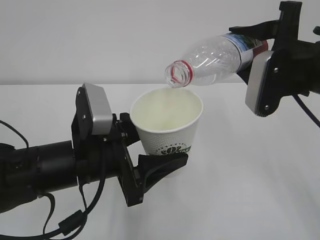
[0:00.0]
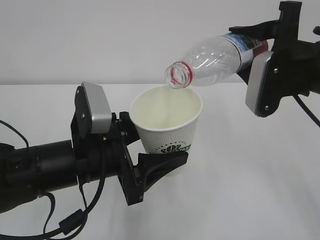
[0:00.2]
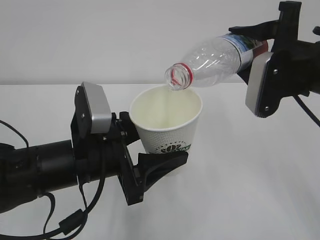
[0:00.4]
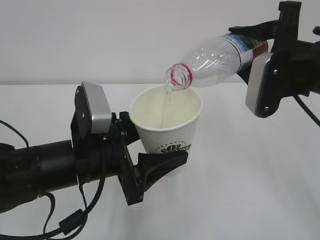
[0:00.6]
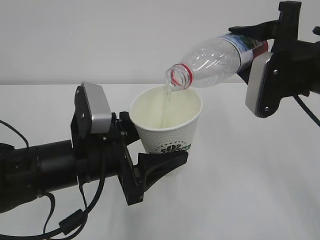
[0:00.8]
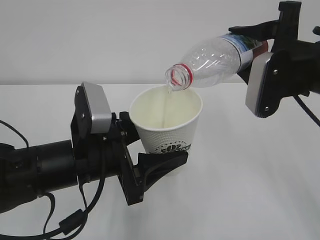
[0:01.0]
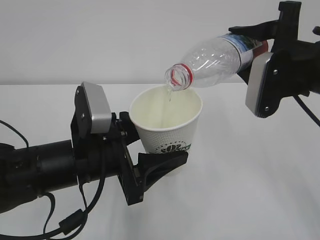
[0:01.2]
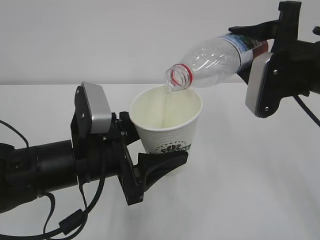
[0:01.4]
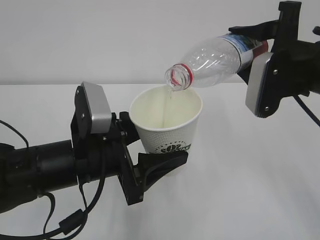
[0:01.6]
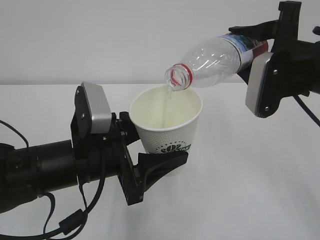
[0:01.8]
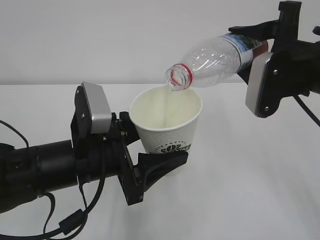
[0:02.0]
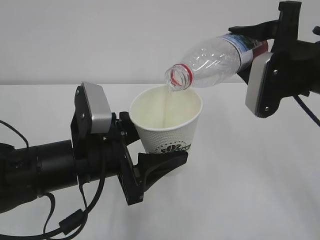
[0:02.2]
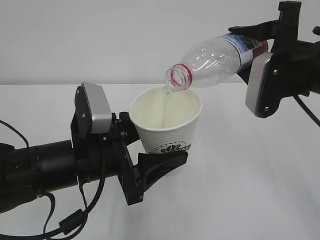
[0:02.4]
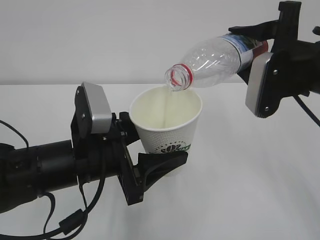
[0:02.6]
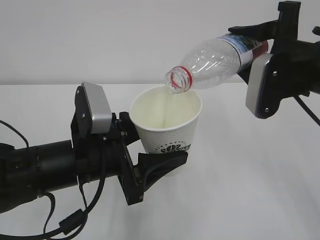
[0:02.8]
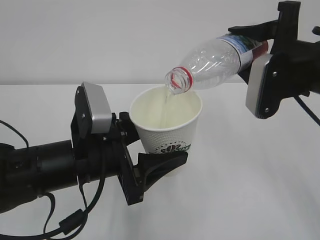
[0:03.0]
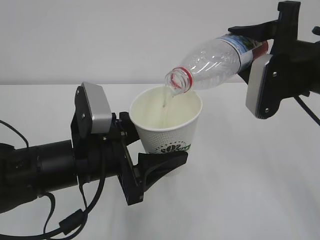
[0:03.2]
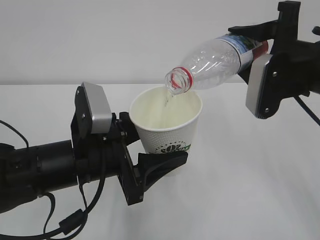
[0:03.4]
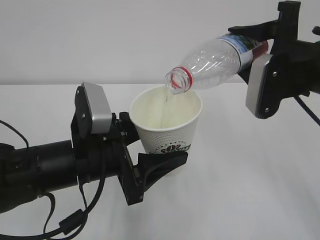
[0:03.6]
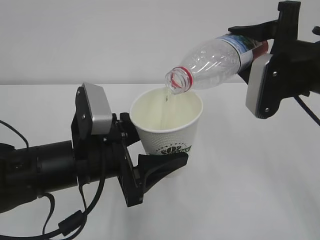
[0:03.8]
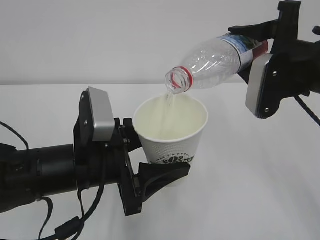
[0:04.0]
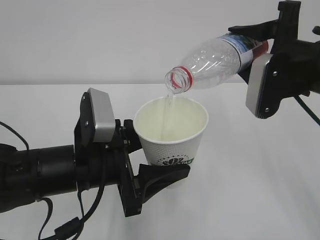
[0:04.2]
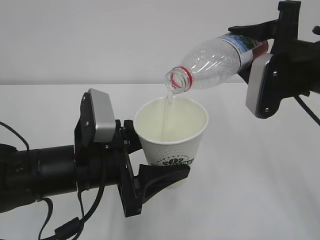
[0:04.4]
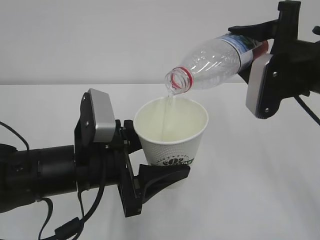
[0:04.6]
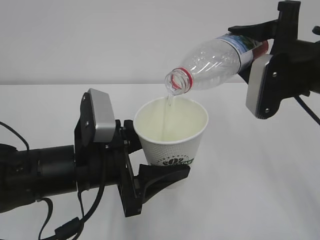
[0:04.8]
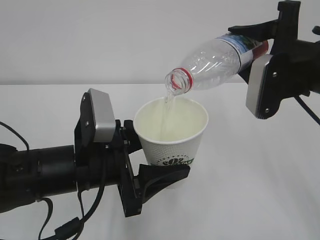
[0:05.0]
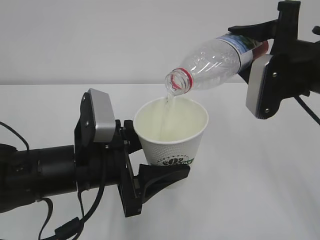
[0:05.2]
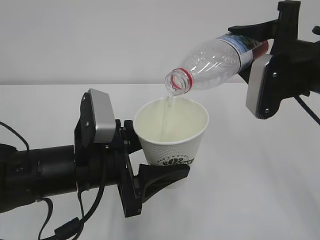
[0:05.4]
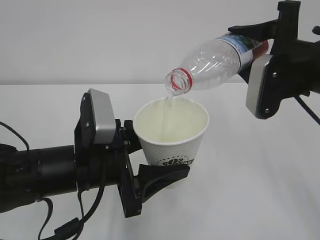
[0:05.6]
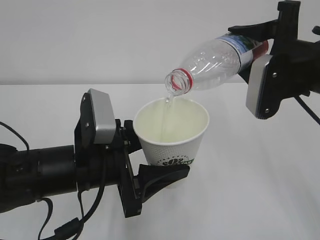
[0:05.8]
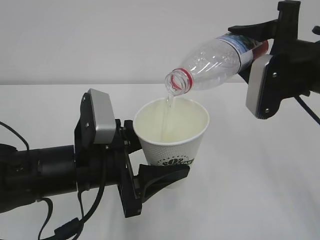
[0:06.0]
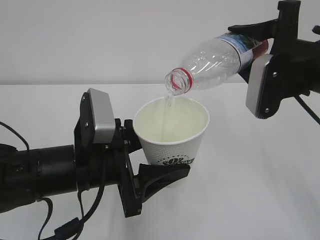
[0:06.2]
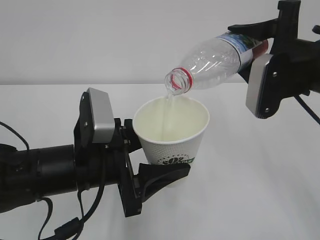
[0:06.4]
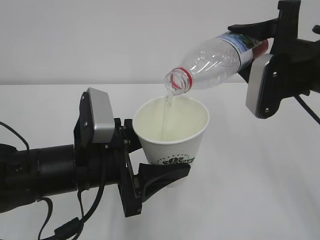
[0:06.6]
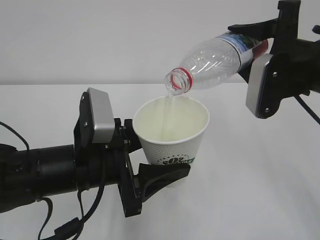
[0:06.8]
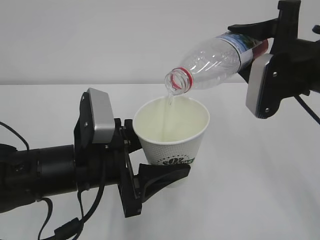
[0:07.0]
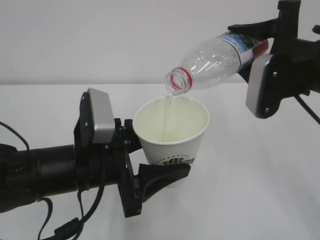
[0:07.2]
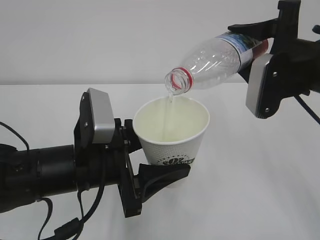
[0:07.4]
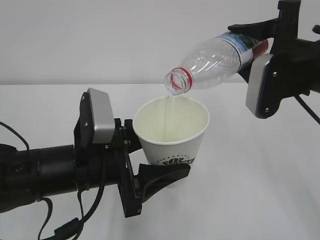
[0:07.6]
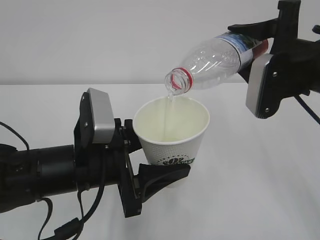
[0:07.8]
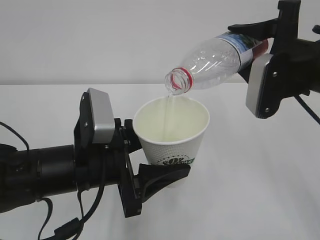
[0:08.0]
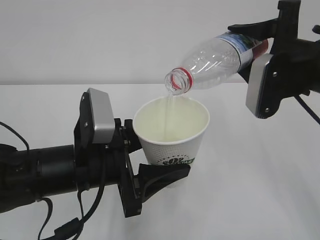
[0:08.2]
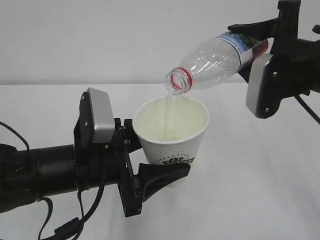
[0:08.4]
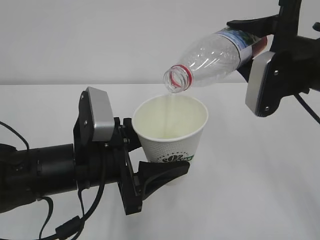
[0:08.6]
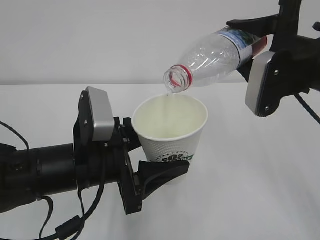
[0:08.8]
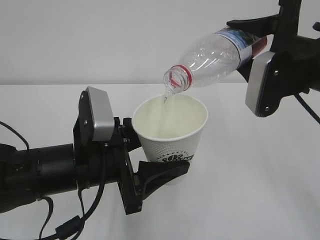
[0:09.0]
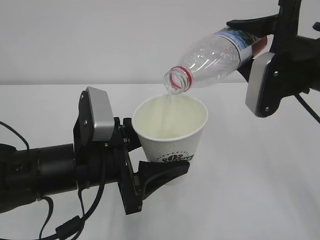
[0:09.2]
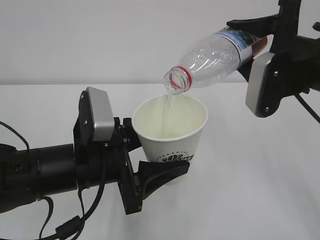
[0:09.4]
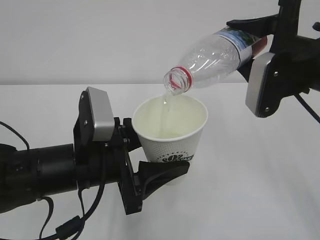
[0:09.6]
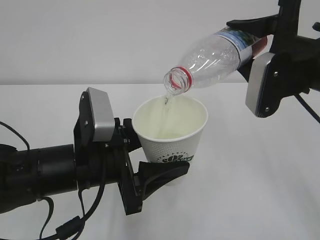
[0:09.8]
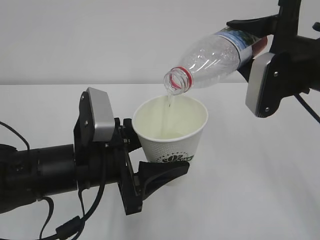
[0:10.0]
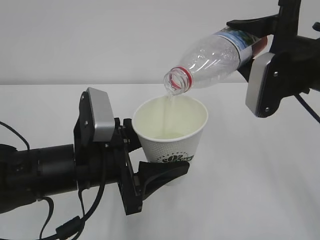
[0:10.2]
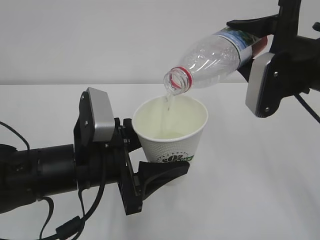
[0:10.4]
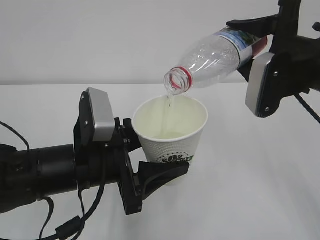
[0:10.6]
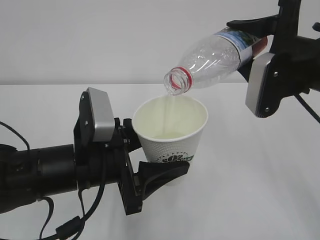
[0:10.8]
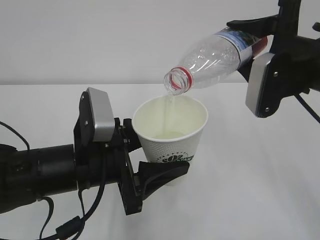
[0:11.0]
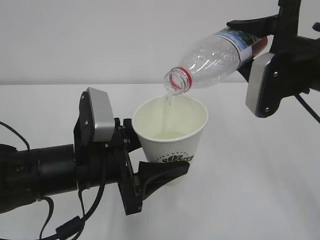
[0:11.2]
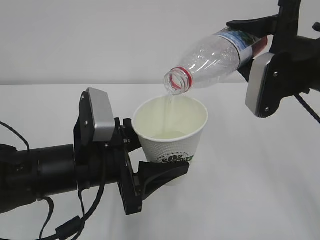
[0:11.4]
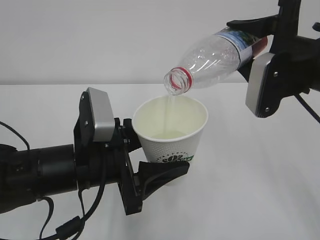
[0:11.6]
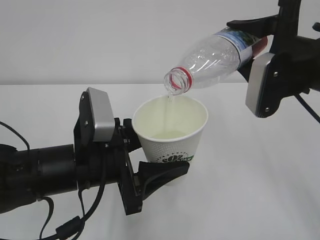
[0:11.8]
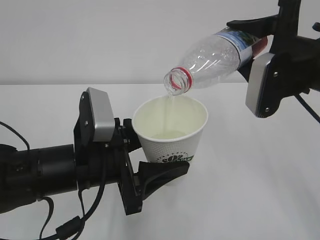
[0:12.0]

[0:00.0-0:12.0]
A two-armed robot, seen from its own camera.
0:00.0 to 0:07.6: Both grippers stay put.
0:07.6 to 0:12.0: Both grippers stay about where they are.

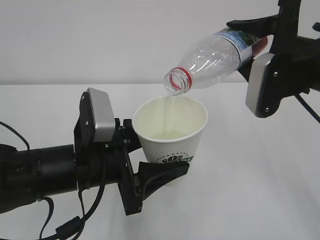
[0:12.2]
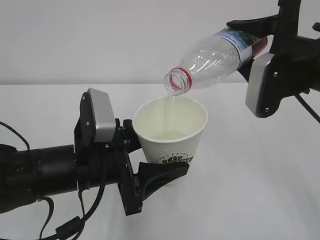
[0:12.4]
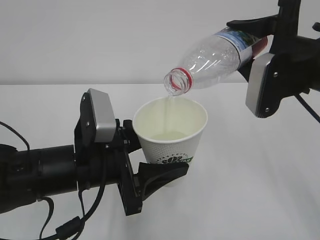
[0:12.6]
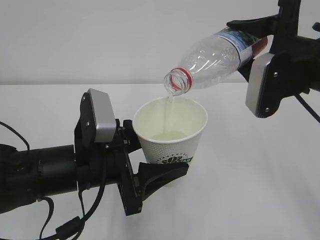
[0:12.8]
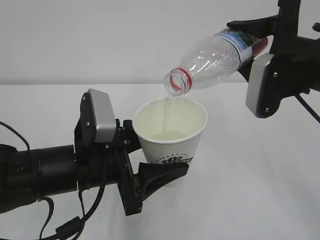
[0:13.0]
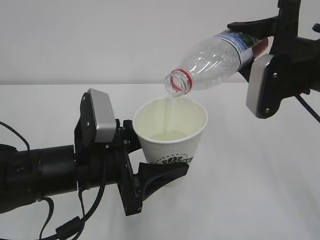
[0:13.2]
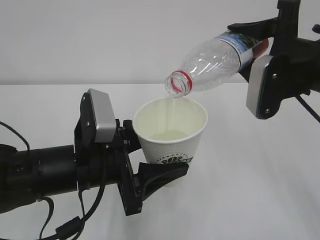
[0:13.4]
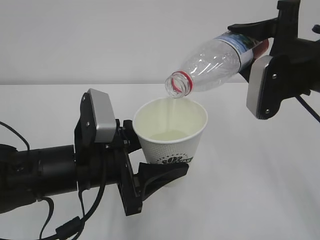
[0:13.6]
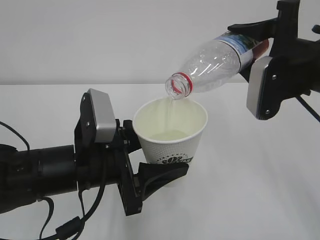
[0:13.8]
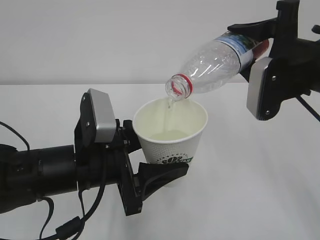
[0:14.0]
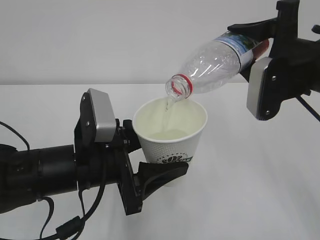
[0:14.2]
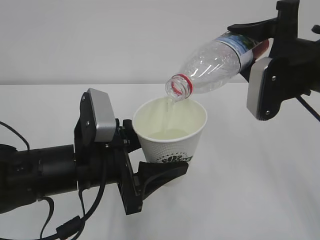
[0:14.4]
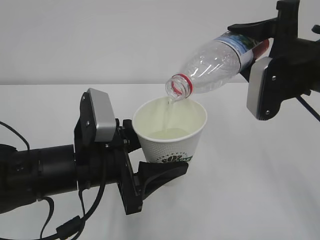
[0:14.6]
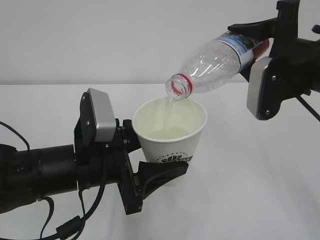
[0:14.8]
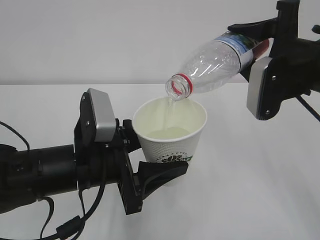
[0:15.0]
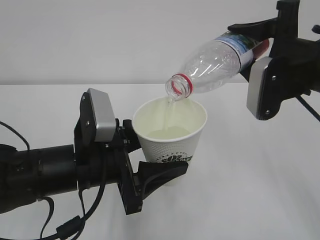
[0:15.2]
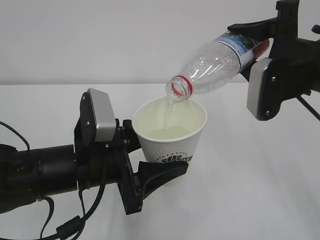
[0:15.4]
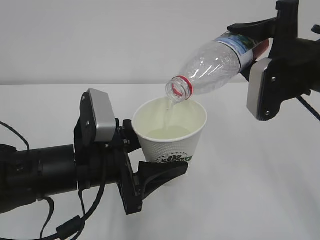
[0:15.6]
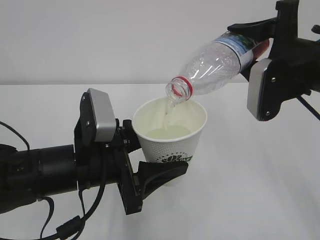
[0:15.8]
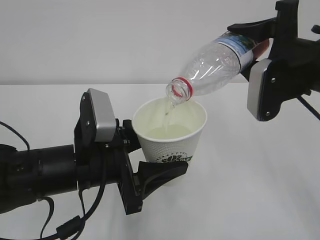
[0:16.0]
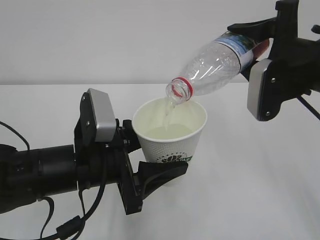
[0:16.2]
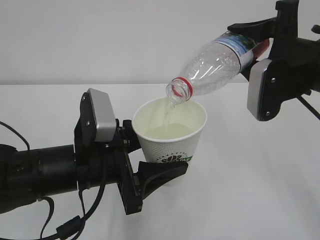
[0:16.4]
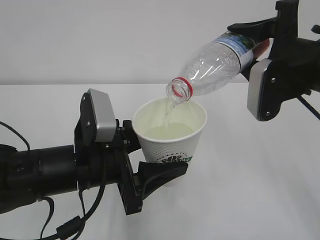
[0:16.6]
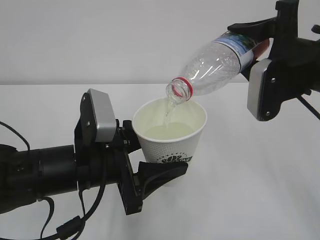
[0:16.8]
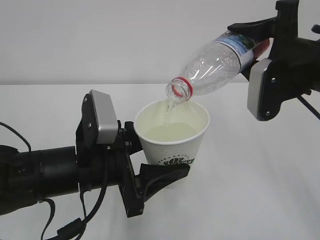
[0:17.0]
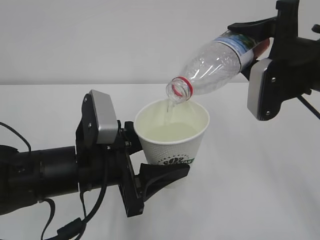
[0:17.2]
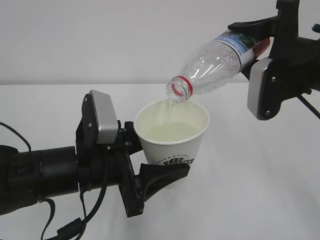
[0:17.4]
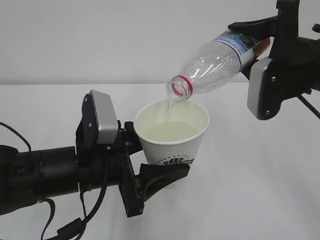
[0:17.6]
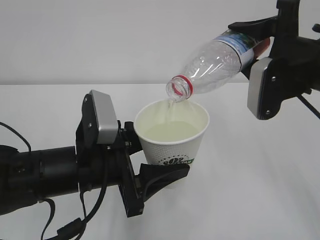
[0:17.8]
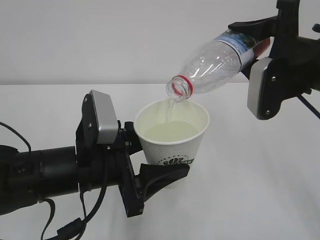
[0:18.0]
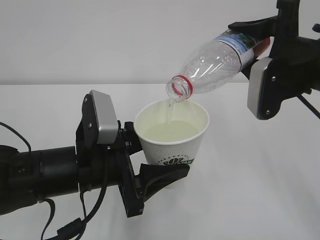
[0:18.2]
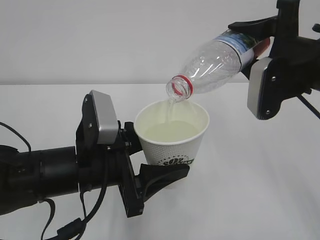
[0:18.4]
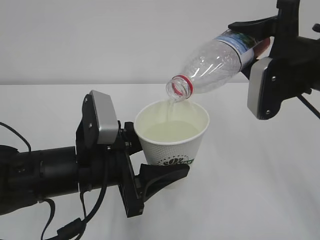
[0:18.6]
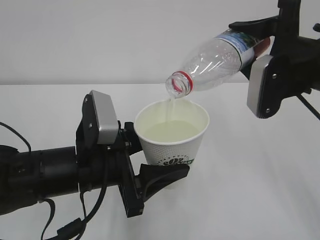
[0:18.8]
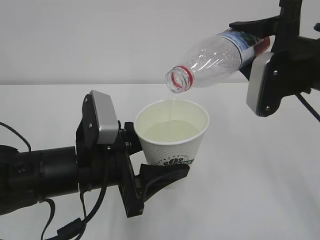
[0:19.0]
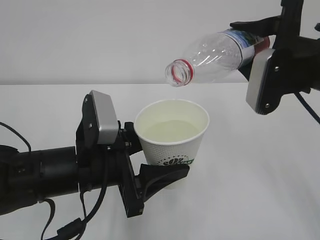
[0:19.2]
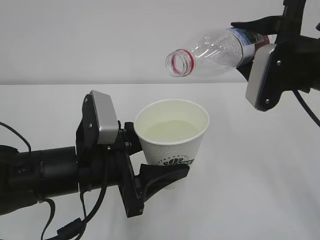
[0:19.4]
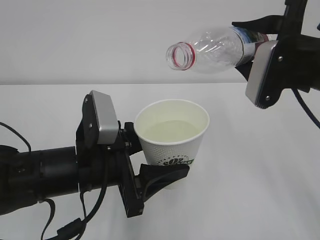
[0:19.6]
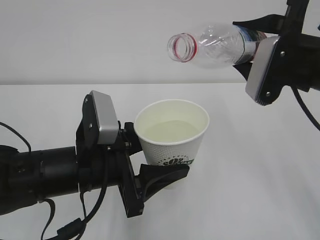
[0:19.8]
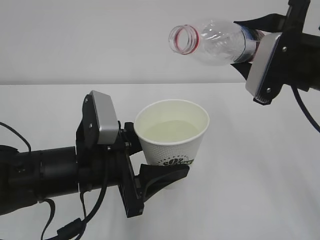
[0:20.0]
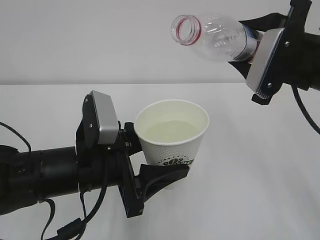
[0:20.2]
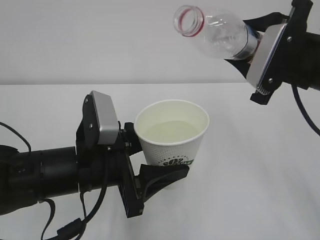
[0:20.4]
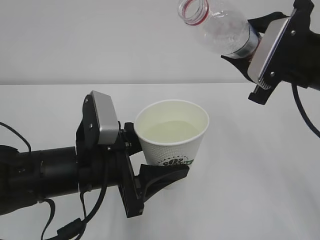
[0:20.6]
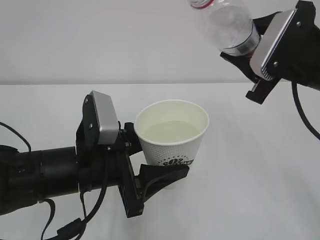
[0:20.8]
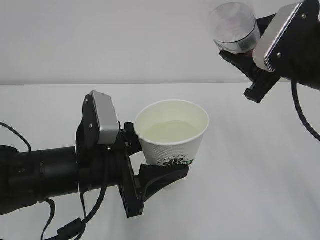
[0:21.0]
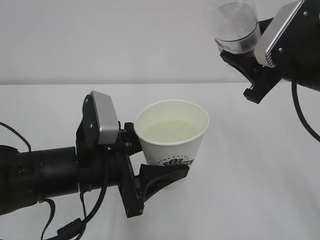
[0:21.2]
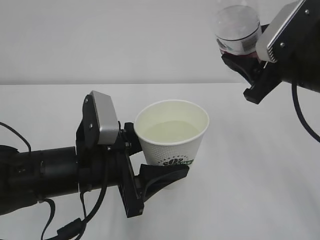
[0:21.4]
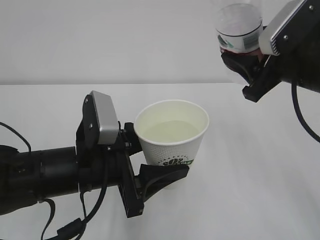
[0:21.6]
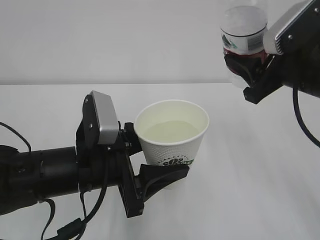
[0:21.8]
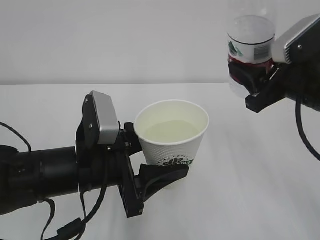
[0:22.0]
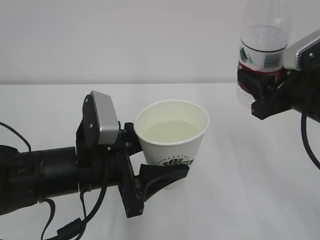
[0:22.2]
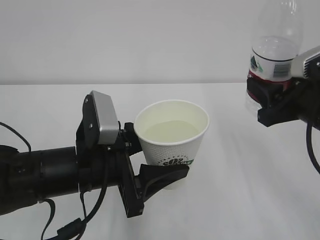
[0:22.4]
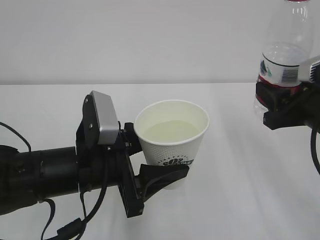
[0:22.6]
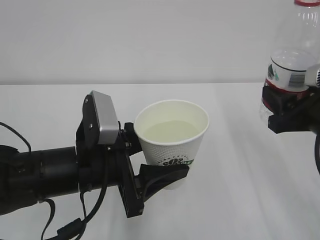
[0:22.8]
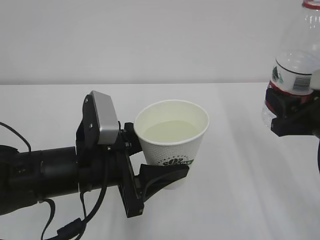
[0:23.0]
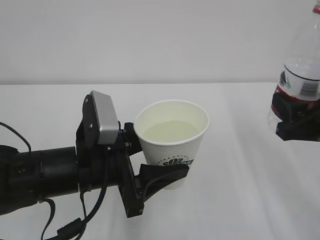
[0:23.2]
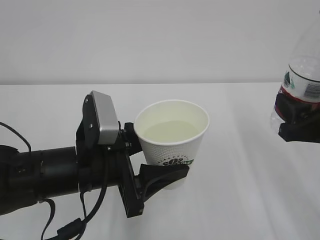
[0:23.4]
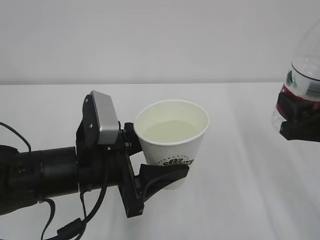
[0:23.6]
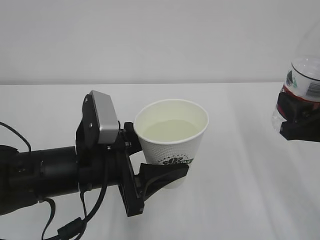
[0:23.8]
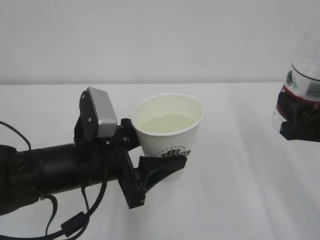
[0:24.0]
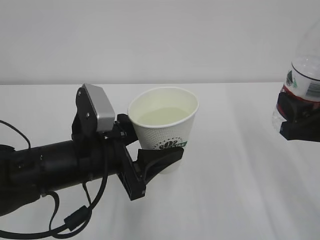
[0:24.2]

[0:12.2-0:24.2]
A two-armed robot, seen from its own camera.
0:12.2 to 0:18.2: Neither gripper changes place.
0:18.2 to 0:19.8: The grippers make only small movements.
0:21.2 to 0:22.6: The right gripper travels downward by some 5 cm.
0:22.6 to 0:24.2: The grippers stay close to where they were, moving slightly.
